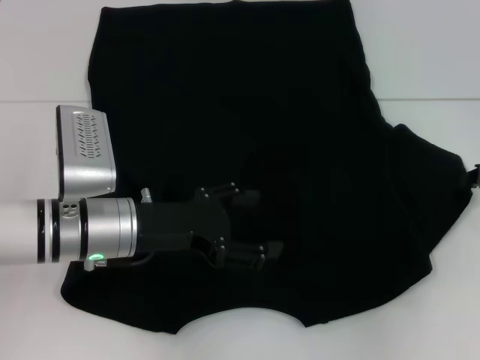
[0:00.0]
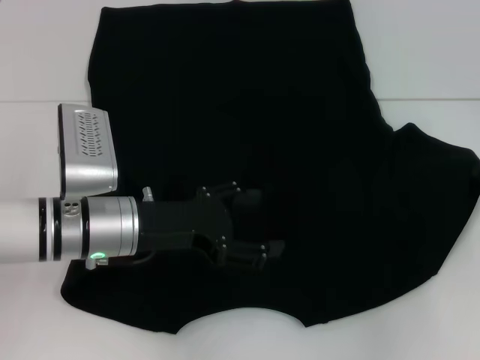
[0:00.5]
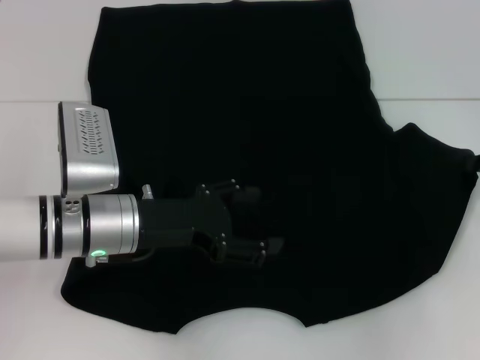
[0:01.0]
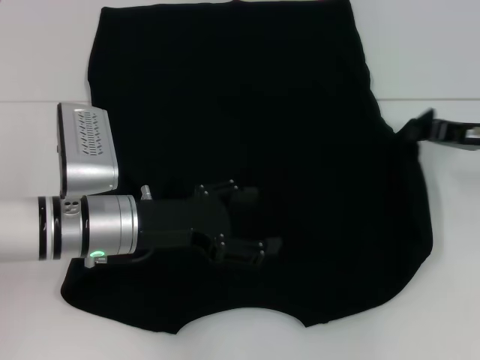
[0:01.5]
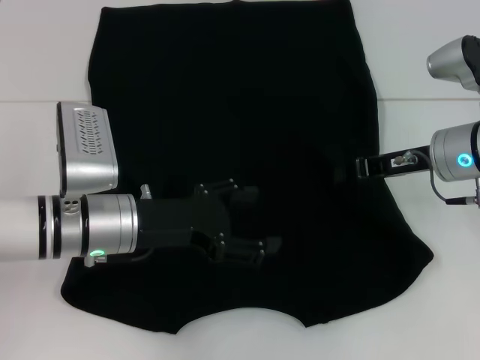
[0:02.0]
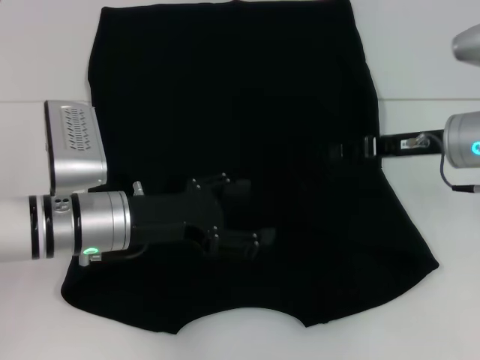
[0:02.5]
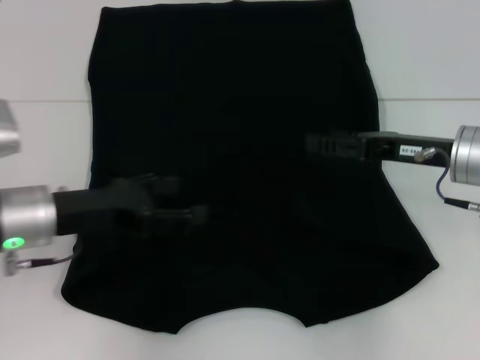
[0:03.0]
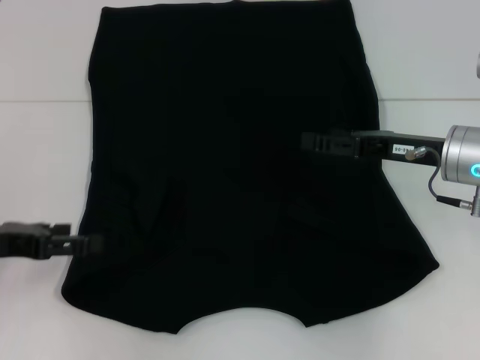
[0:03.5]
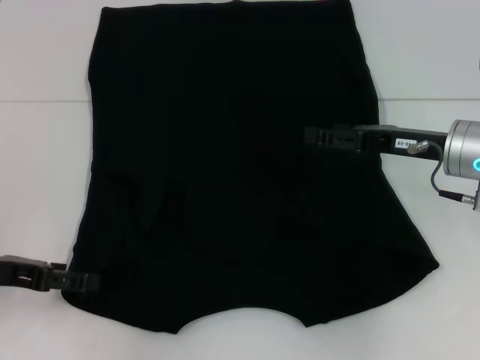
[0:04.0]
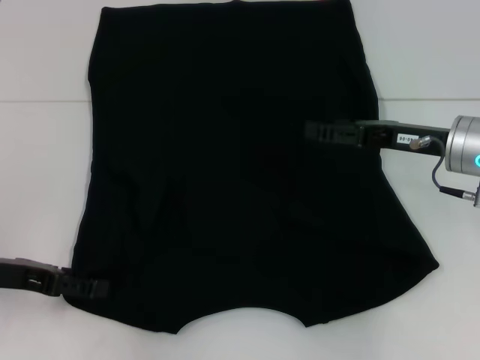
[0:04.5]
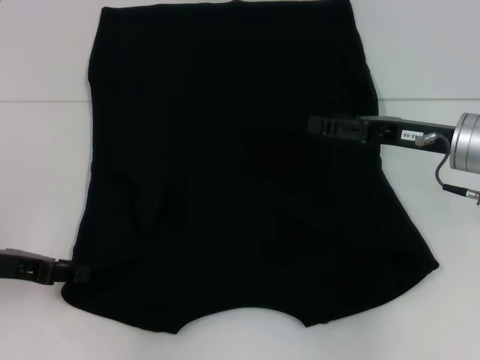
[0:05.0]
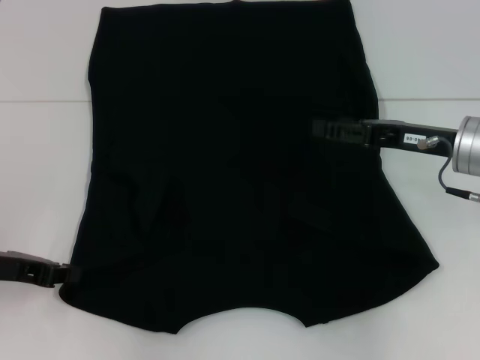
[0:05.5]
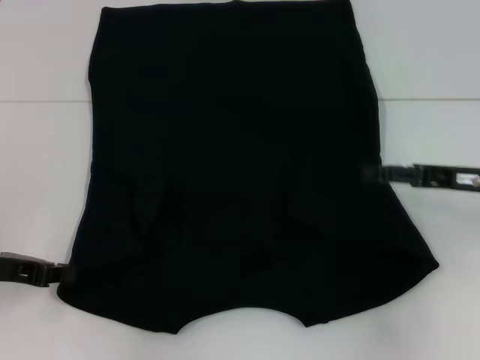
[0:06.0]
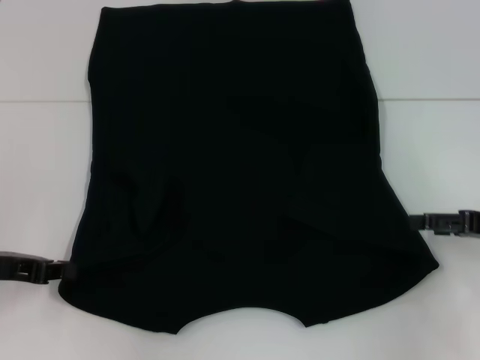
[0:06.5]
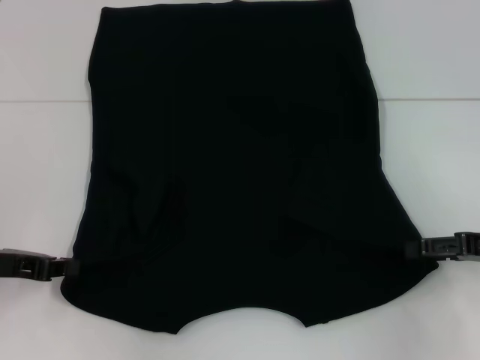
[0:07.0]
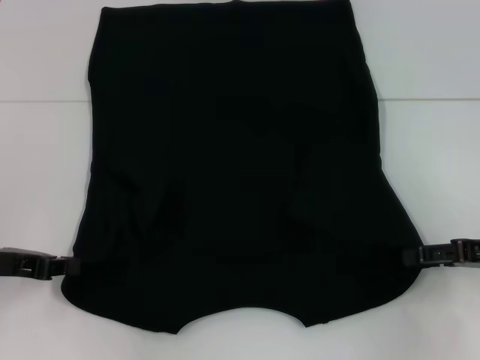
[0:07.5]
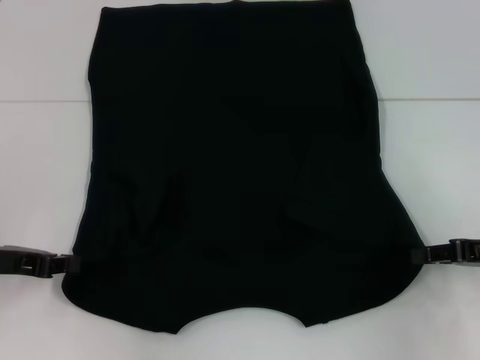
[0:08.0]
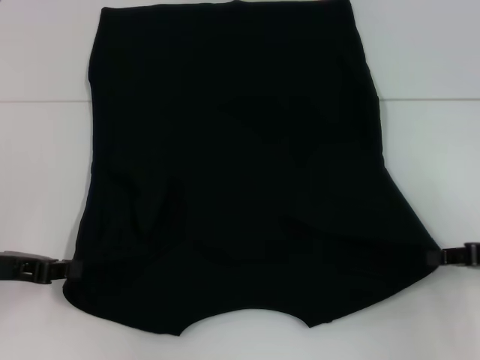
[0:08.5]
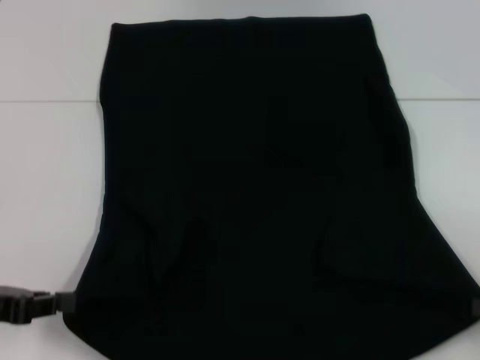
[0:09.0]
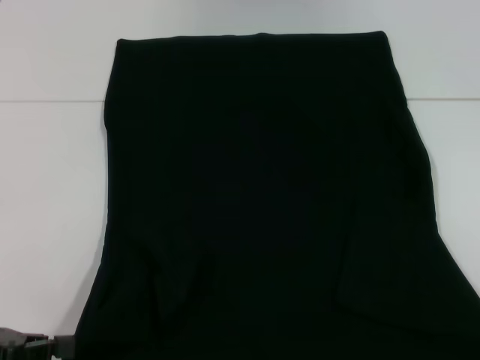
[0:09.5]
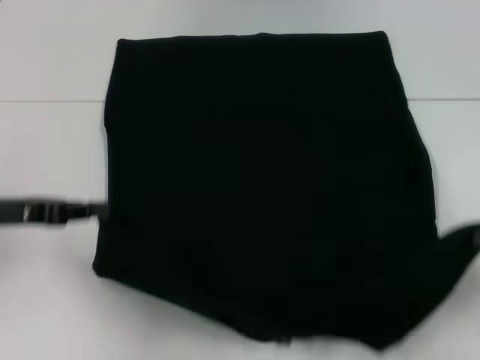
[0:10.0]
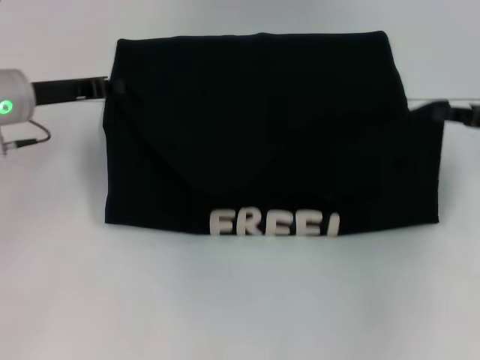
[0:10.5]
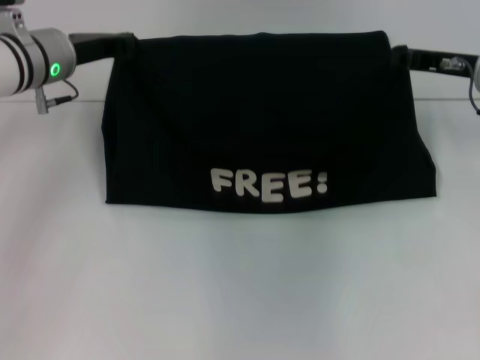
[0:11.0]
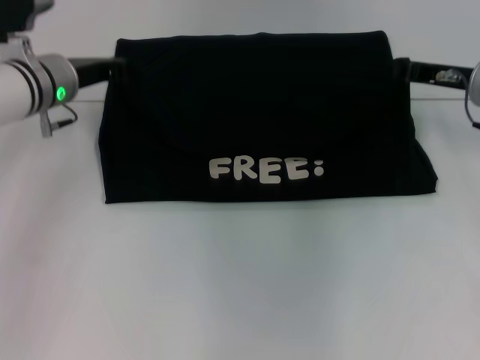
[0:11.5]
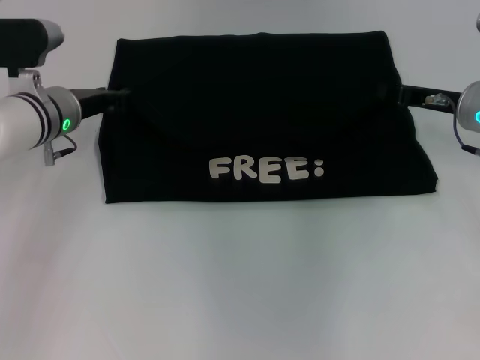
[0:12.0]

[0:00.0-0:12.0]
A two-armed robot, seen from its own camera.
Step, 0:00.0 to 0:02.5: Fold the bottom right sleeve with your right hand.
Step, 0:03.0 to 0:06.0: Grab the bottom left corner with your left hand.
Step, 0:06.5 to 0:08.0: Grab the bottom right corner with your right hand.
Step, 0:08.5 to 0:12.0: Fold the clothes with your left hand.
Step, 0:08.5 to 0:12.0: Fold the clothes with your right hand.
0:00.0 to 0:02.0: The right gripper is displaced to the left by roughly 10 cm.
0:02.0 to 0:04.0: The right gripper opens its fingers, while the left gripper heads to the left, covering some 15 cm.
0:04.0 to 0:06.0: The left gripper closes; the right gripper is displaced to the right by about 5 cm.
0:06.0 to 0:08.0: The right gripper moves about 5 cm, and closes.
0:08.0 to 0:10.0: The right gripper shifts approximately 10 cm to the right and backward; the left gripper reaches approximately 10 cm backward, then returns.
0:10.0 to 0:12.0: The left gripper shifts approximately 15 cm forward and to the right, while the right gripper is displaced forward and to the left by some 20 cm.

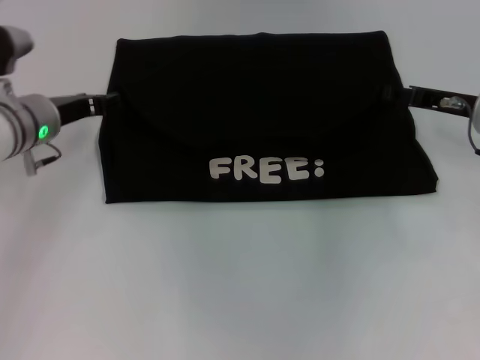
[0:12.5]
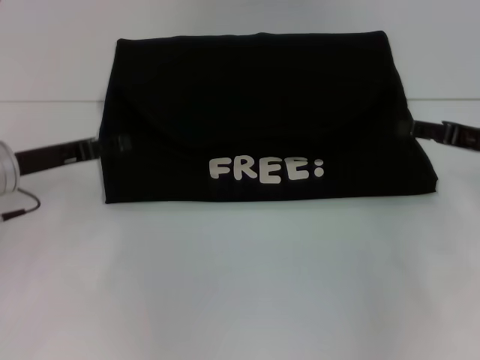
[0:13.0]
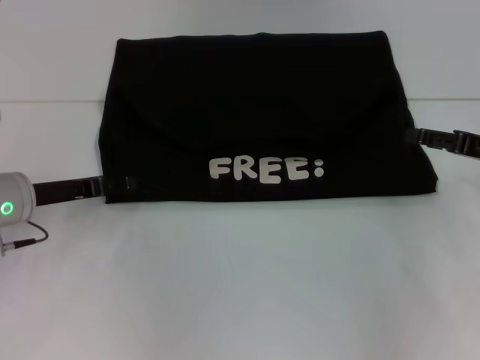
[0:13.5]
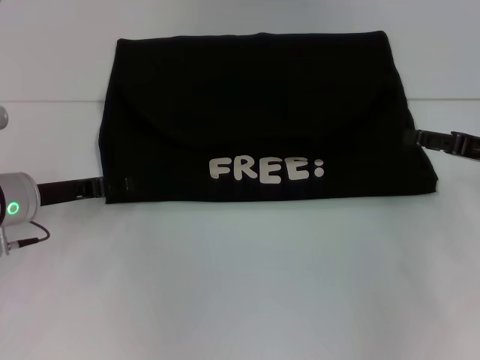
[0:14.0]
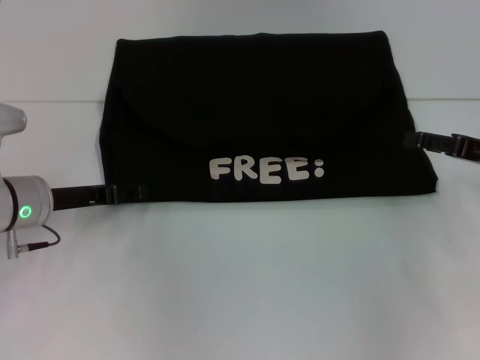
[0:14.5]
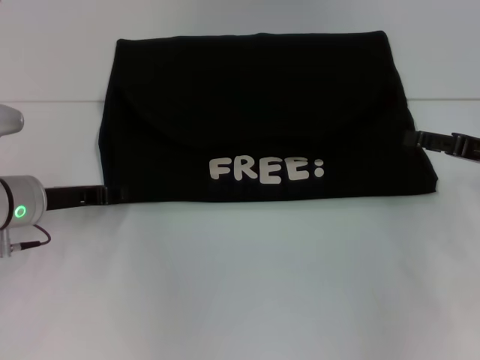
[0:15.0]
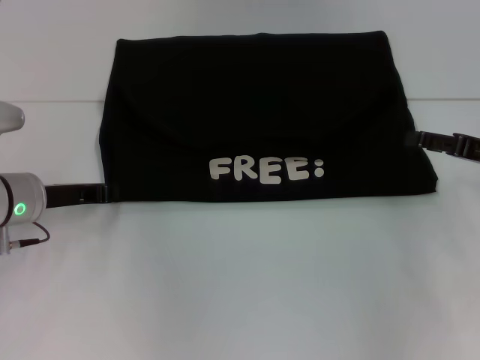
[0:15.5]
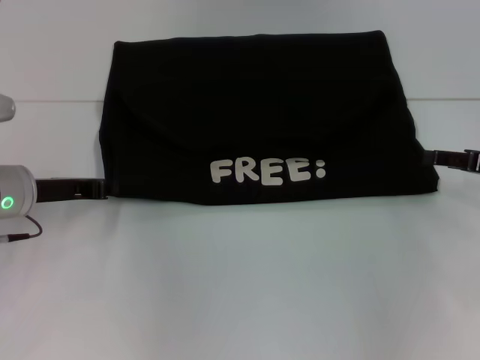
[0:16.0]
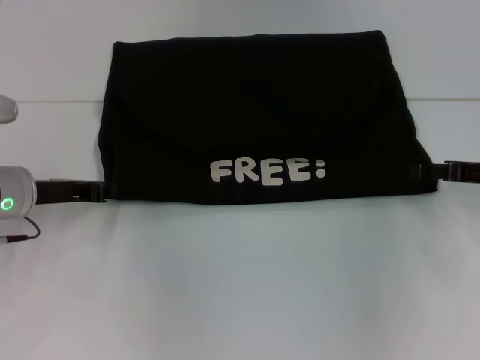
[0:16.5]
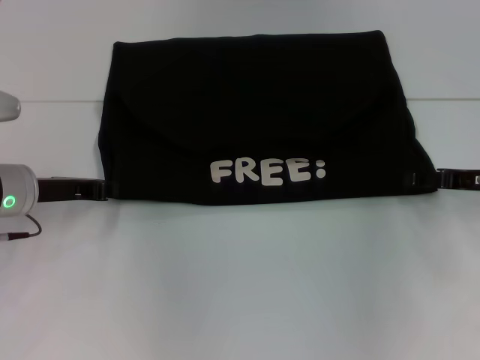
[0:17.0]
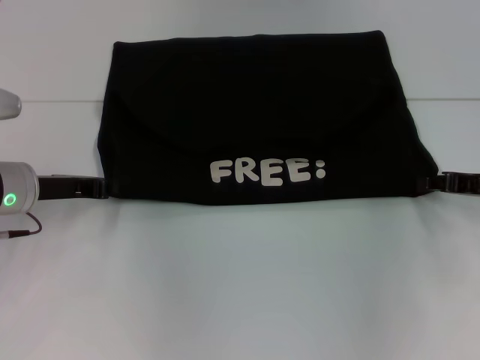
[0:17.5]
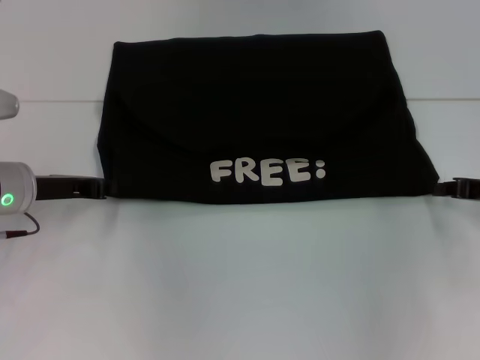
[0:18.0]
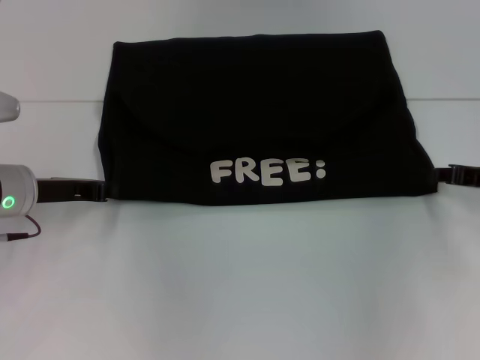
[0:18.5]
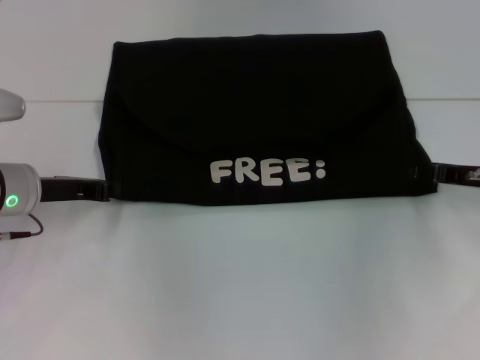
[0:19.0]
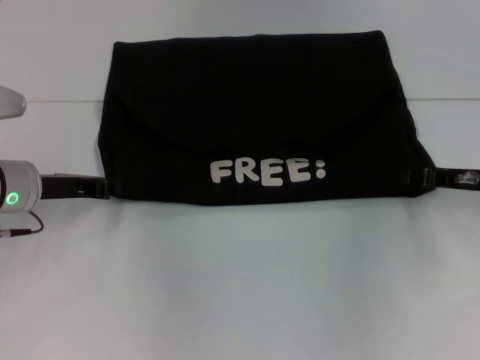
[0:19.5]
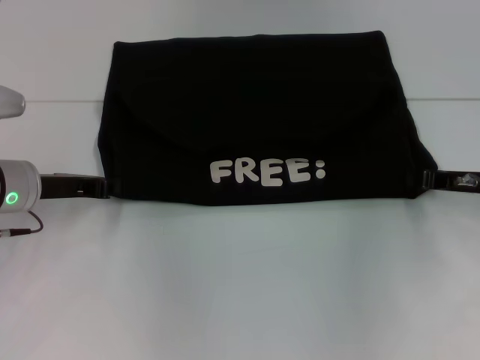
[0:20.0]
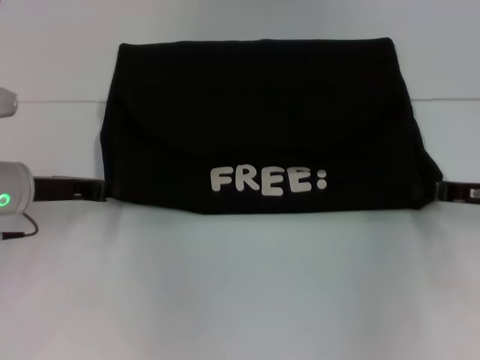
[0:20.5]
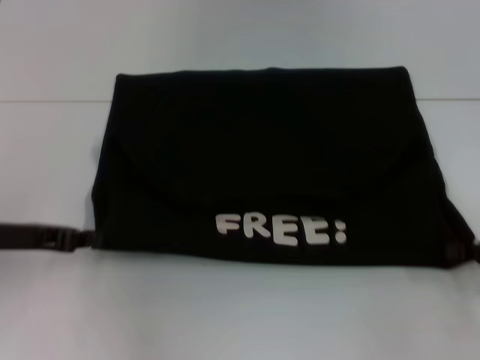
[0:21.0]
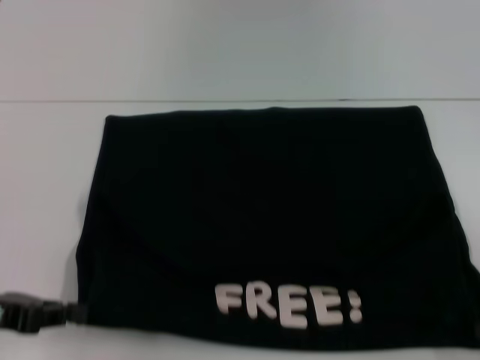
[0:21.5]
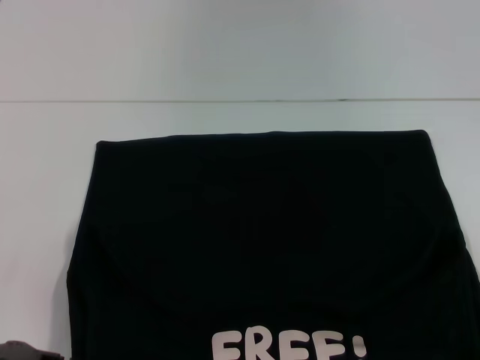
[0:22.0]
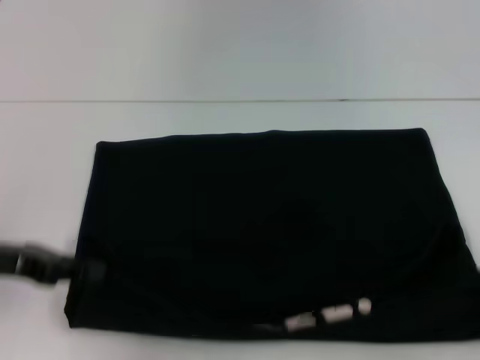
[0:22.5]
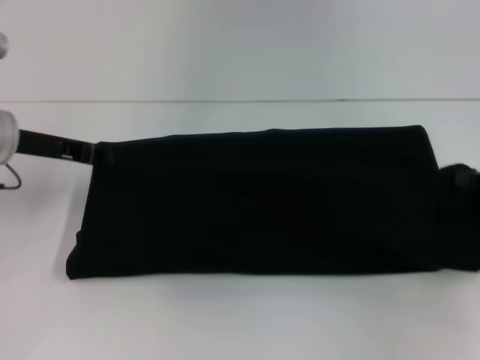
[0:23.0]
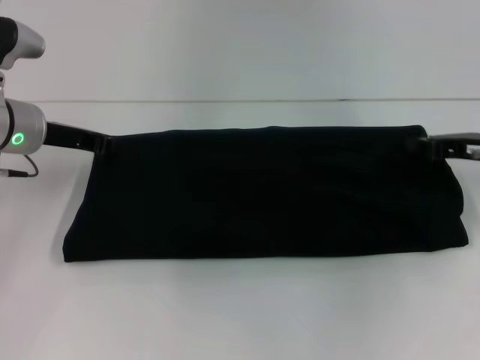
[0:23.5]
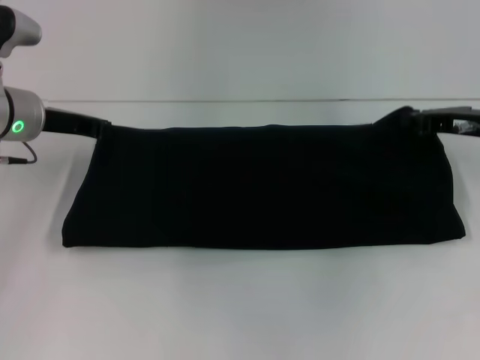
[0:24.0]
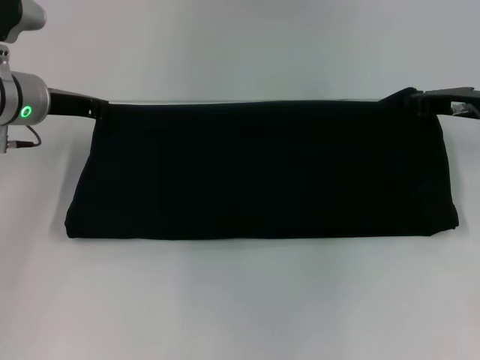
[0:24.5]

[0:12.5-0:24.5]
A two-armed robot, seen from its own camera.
Step, 0:12.5 to 0:22.0: Pull the clothes with your left hand.
Step, 0:12.5 to 0:22.0: Pull the clothes with your right hand.
0:12.5 to 0:14.5: The right gripper travels backward and to the right by roughly 10 cm; the left gripper moves backward, roughly 5 cm.
0:14.5 to 0:16.5: The left gripper closes its fingers.
0:18.5 to 0:20.5: The right gripper opens, then closes once more.
0:20.5 to 0:22.5: The right gripper is displaced backward and to the right by some 15 cm. Meanwhile the left gripper is displaced backward by roughly 10 cm.
0:22.5 to 0:24.5: The right gripper moves forward and to the left, some 25 cm. The left gripper travels forward by approximately 15 cm.

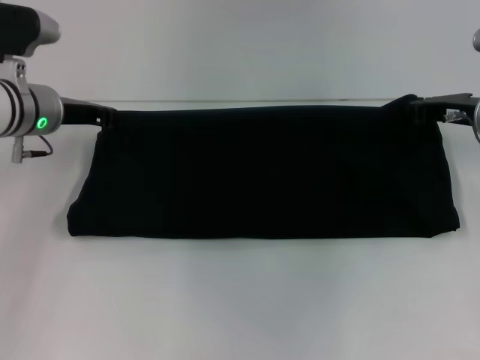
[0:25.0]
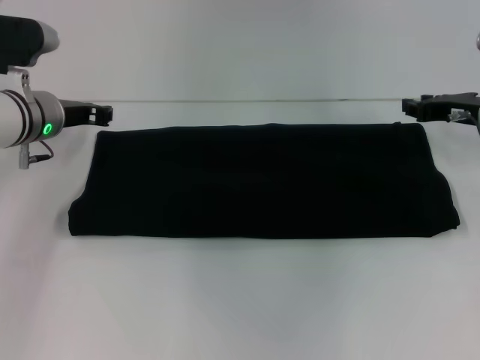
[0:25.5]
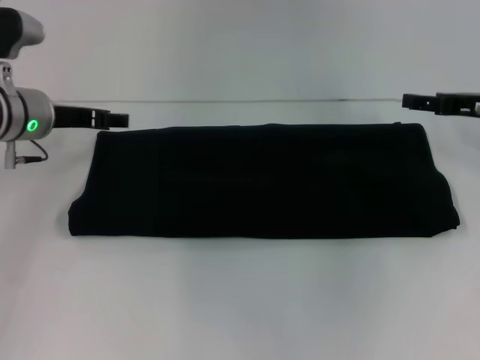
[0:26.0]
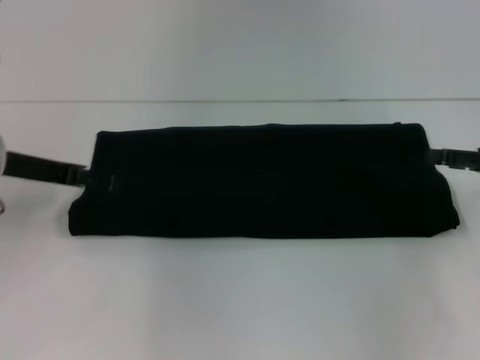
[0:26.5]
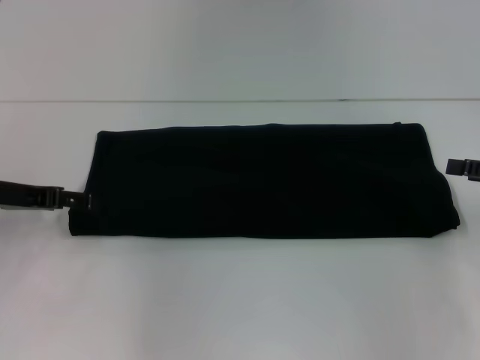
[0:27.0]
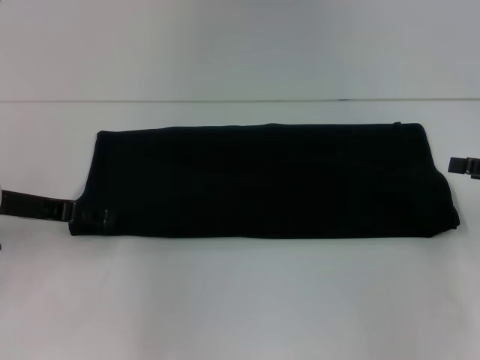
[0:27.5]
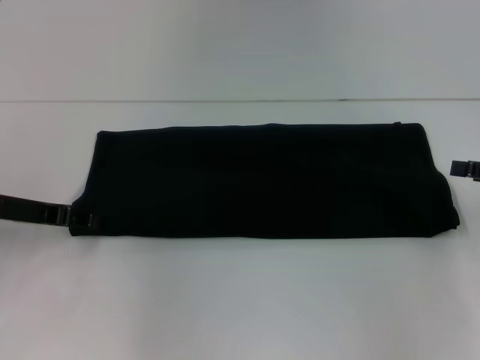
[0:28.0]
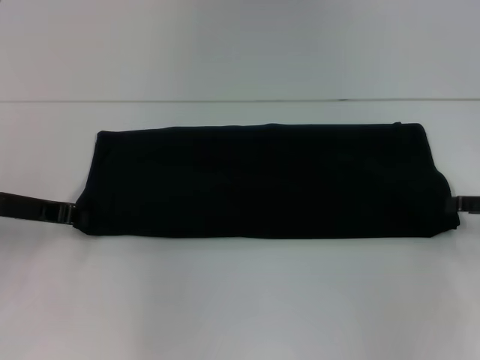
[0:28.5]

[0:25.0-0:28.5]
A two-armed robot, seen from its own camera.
0:25.0 to 0:27.0: The right gripper moves backward and to the right, about 15 cm, and opens its fingers; the left gripper shifts approximately 10 cm backward and to the left, and opens its fingers.
0:27.0 to 0:28.5: The left gripper closes up.
